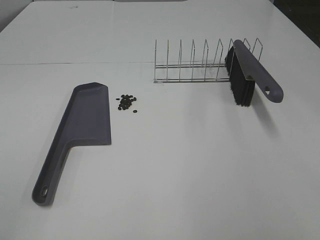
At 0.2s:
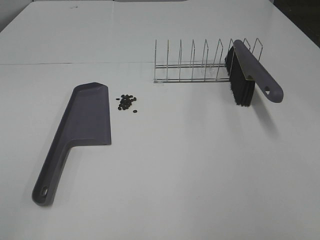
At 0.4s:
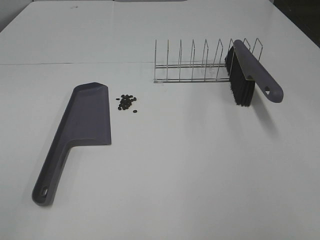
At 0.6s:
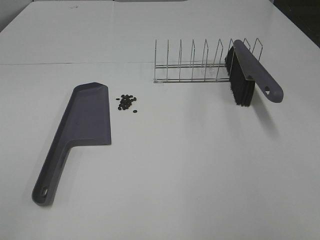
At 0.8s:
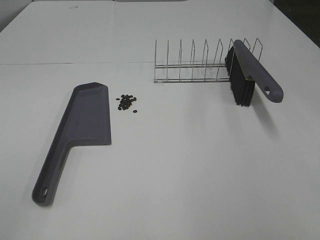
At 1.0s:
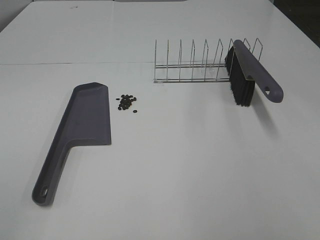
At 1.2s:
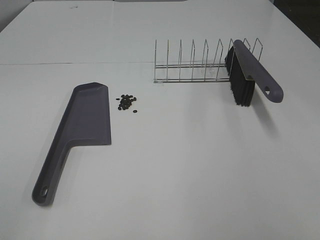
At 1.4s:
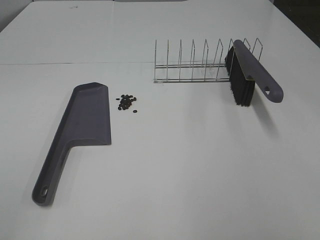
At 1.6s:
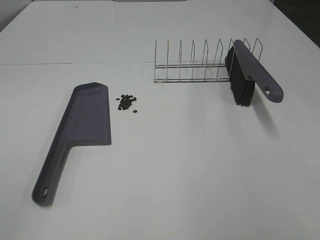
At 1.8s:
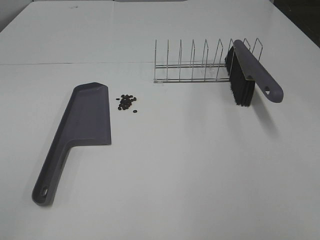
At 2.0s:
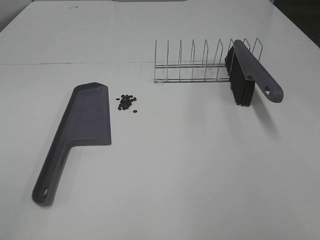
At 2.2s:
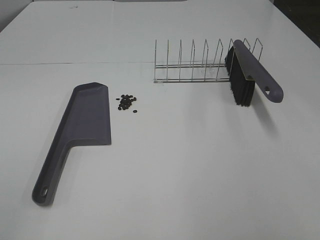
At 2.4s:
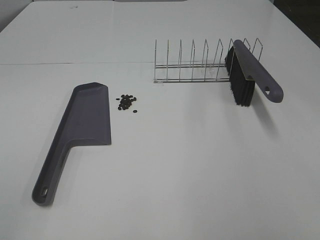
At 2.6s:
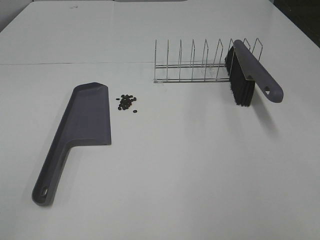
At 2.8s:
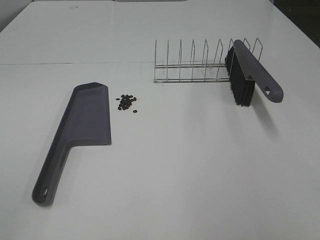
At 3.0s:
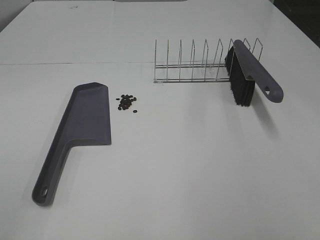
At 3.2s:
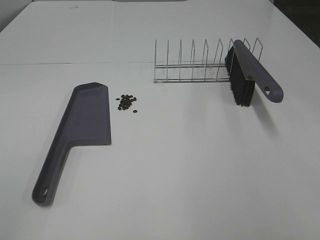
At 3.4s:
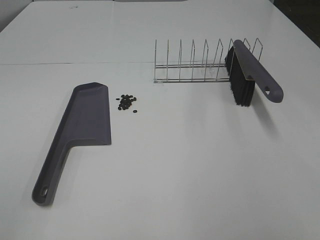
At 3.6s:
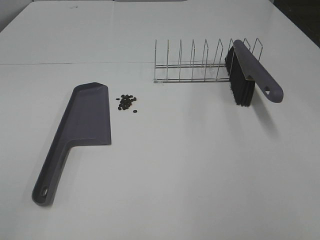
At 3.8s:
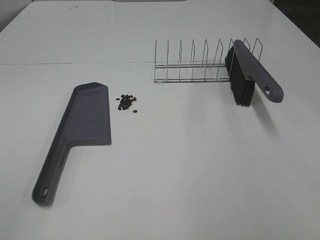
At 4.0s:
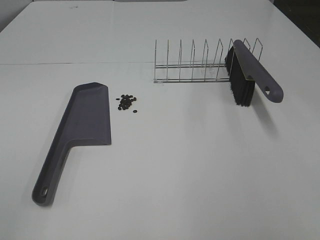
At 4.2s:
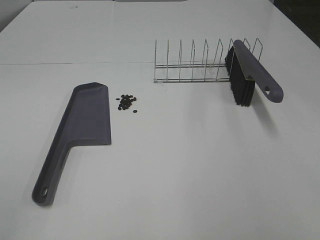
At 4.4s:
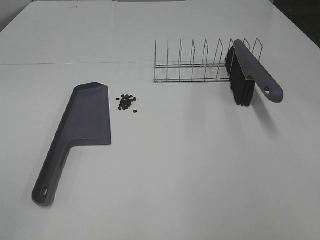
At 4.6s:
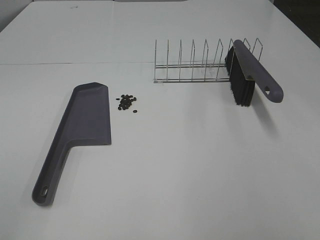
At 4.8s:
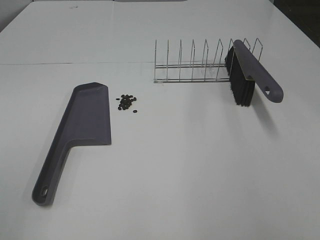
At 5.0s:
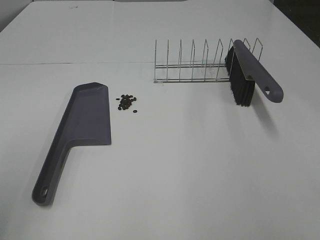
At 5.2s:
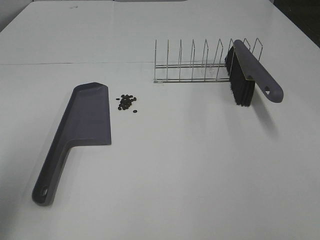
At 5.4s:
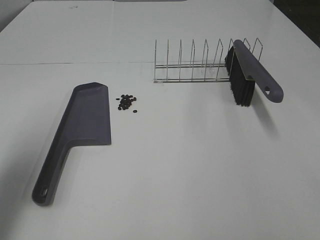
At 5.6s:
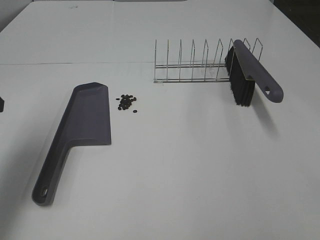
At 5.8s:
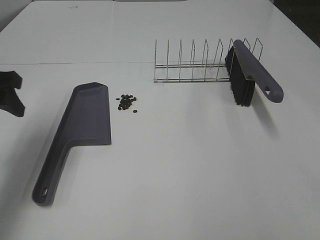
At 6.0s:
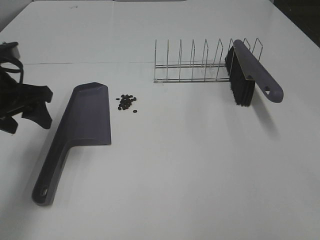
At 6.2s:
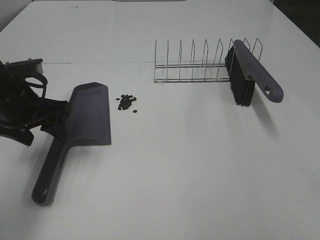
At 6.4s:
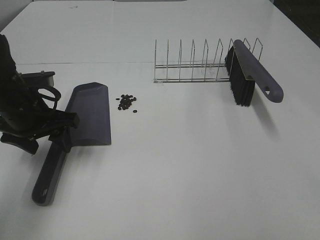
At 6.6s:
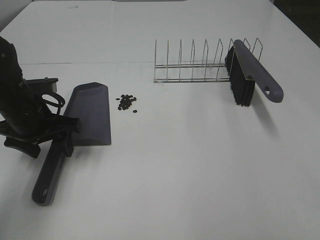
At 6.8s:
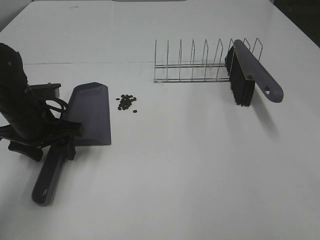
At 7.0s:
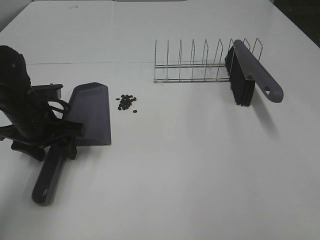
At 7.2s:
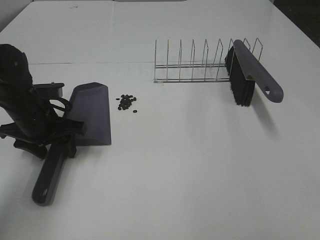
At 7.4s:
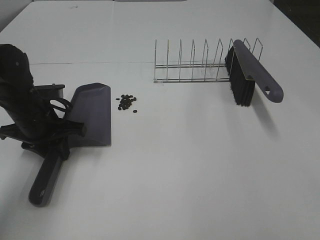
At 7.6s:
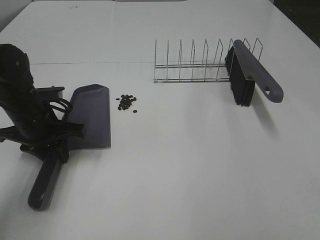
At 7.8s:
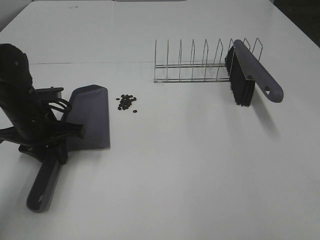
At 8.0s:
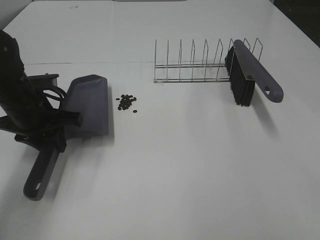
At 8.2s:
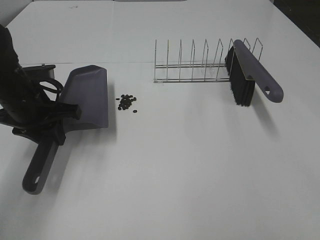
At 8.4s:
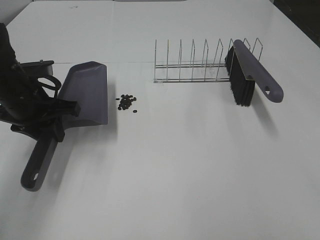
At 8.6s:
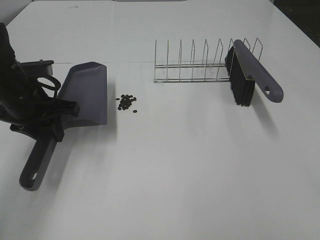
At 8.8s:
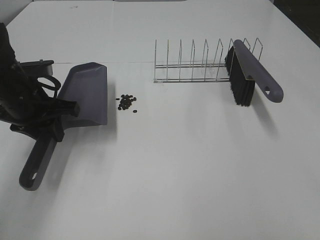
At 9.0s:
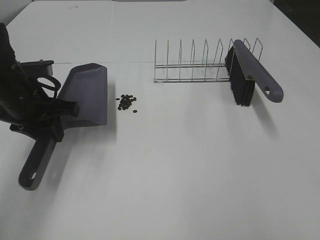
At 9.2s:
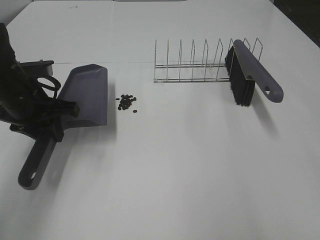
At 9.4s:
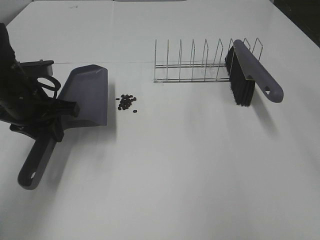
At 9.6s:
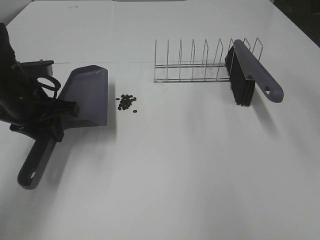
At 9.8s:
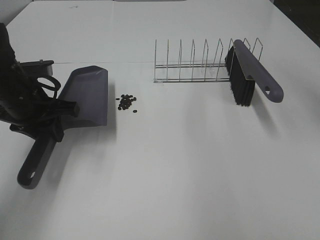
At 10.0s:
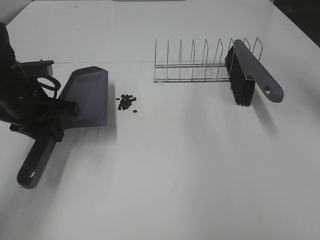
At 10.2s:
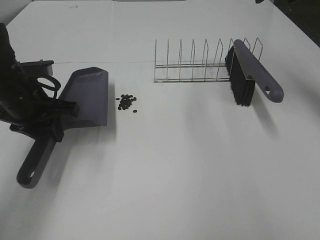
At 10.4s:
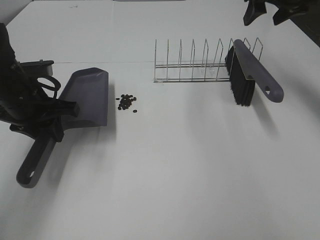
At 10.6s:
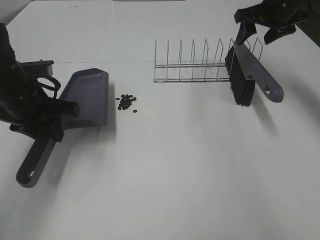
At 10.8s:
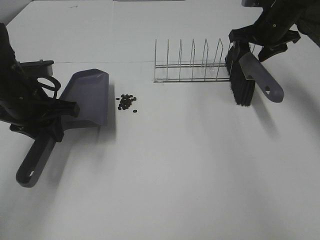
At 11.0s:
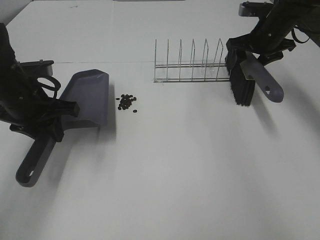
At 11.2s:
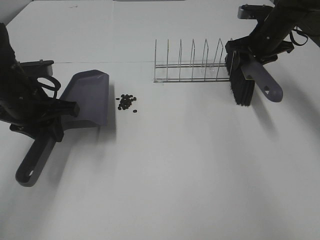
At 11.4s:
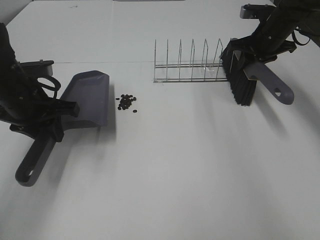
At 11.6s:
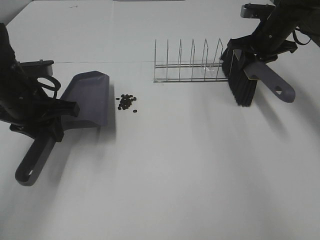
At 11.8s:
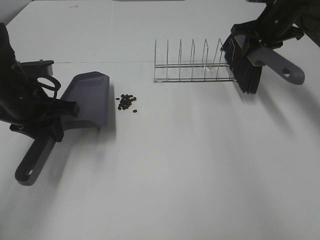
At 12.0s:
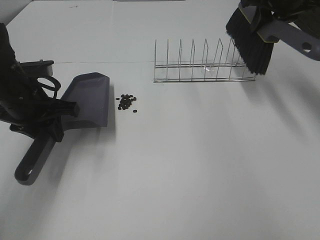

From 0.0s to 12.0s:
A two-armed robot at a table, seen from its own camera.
Task of the whole recording: Sweep Coffee Bean.
Step, from 0.0s to 7.4s: Left hand: grab the dustpan.
Step, from 8.8s to 11.2s: Right hand:grab the broom.
From 0.0s to 4.4s: The two grippers keep their place.
From 4.4s to 6.0s: The left gripper goes roughly 30 cm forward.
From 6.0s to 7.6s: The left gripper heads downward, covering approximately 10 cm, and closes up.
From 7.6s to 9.0s: The left gripper heads upward, covering about 5 cm. The right gripper shifts by about 5 cm.
From 9.0s to 10.4s: The right gripper shifts some 40 cm forward.
From 10.4s to 12.0s: The right gripper goes downward and returns, about 10 cm each way, and closes its fingers.

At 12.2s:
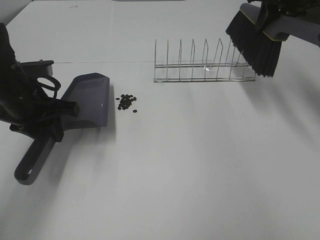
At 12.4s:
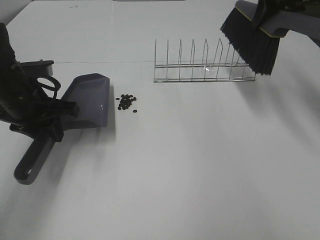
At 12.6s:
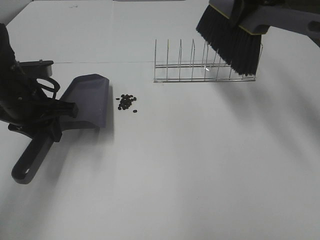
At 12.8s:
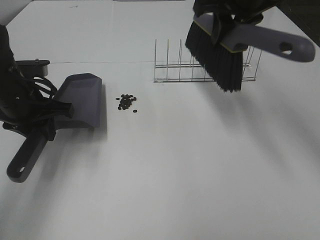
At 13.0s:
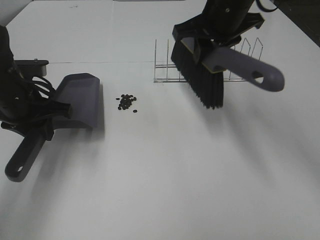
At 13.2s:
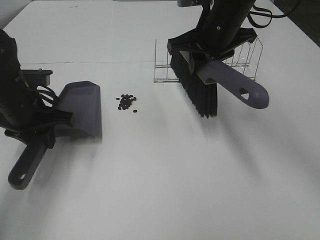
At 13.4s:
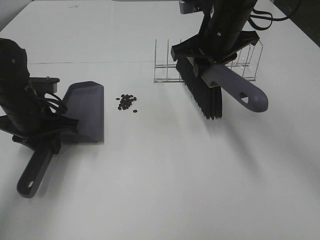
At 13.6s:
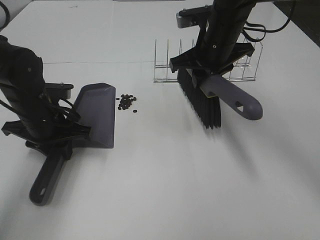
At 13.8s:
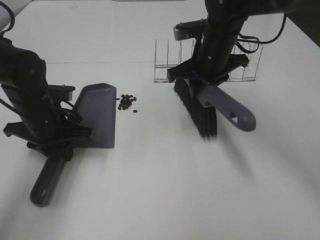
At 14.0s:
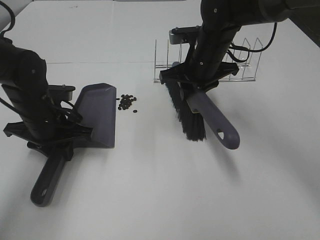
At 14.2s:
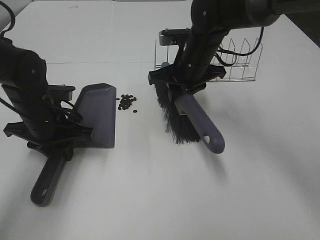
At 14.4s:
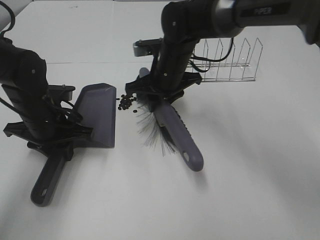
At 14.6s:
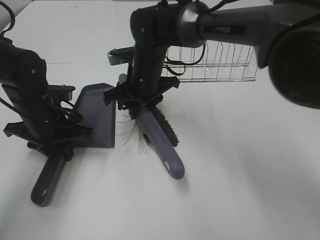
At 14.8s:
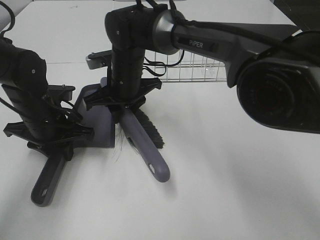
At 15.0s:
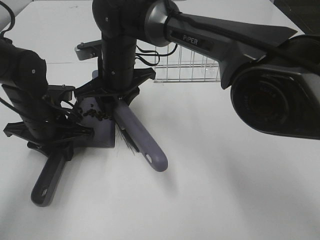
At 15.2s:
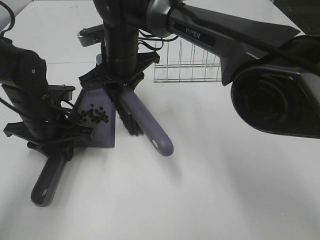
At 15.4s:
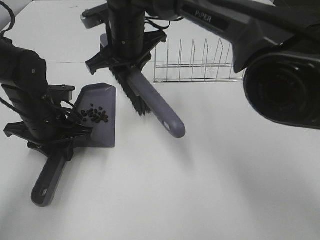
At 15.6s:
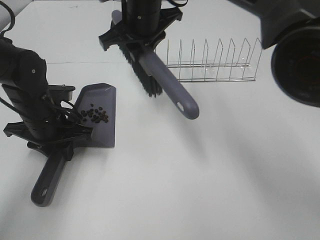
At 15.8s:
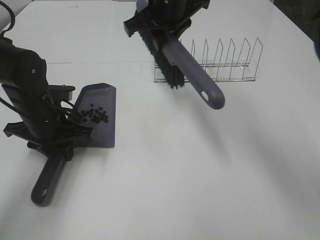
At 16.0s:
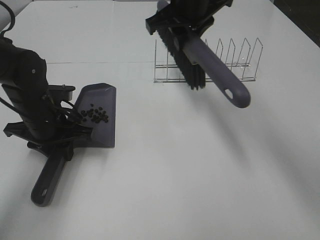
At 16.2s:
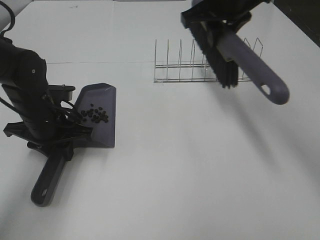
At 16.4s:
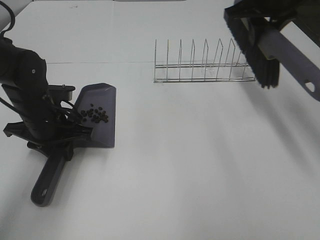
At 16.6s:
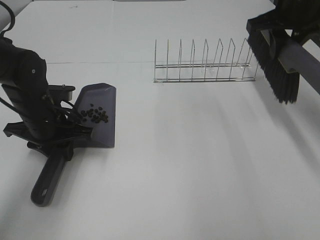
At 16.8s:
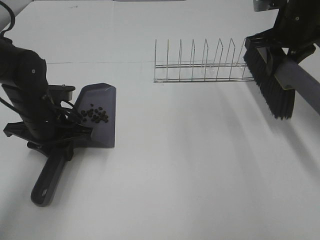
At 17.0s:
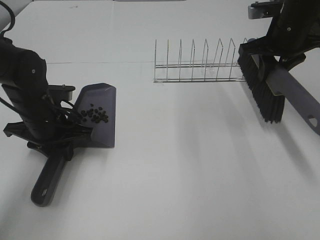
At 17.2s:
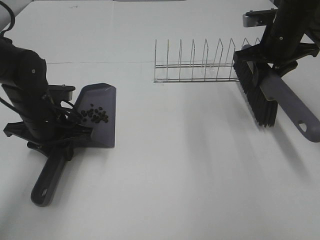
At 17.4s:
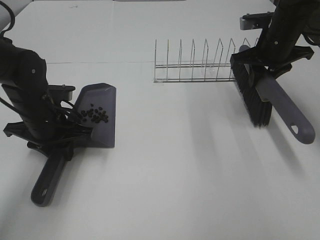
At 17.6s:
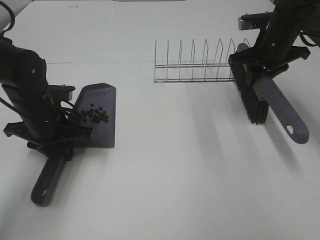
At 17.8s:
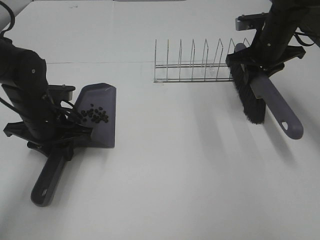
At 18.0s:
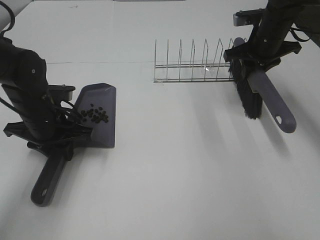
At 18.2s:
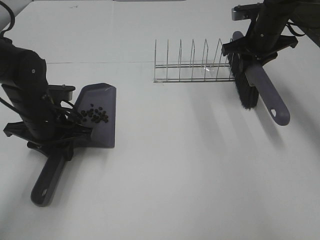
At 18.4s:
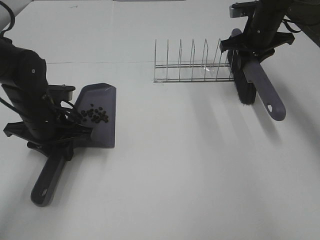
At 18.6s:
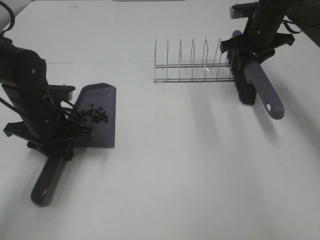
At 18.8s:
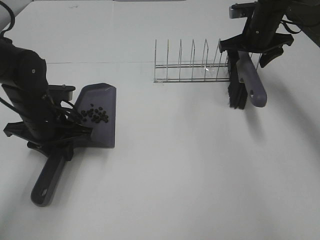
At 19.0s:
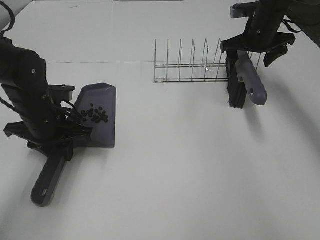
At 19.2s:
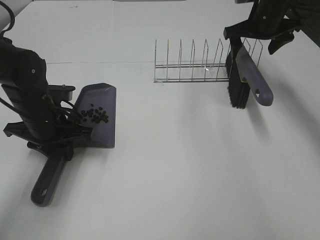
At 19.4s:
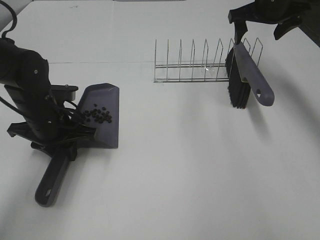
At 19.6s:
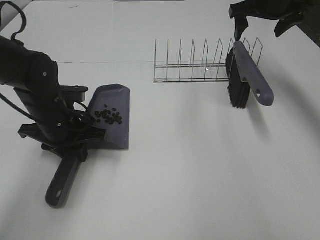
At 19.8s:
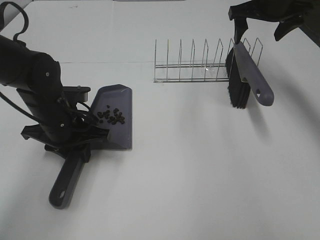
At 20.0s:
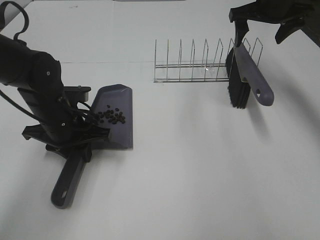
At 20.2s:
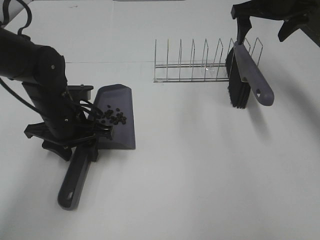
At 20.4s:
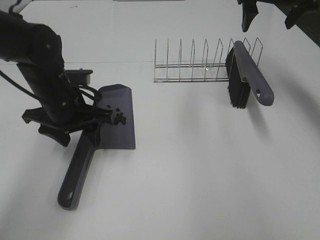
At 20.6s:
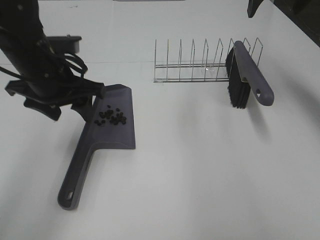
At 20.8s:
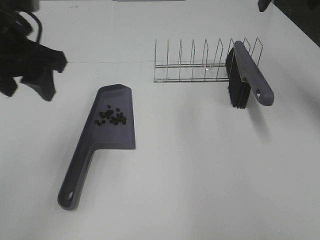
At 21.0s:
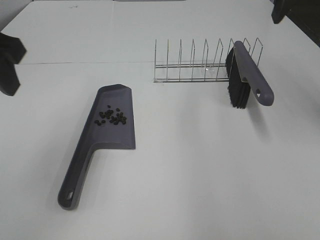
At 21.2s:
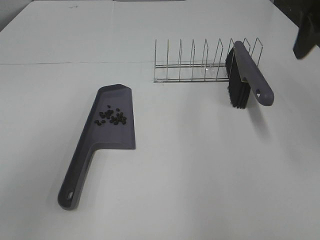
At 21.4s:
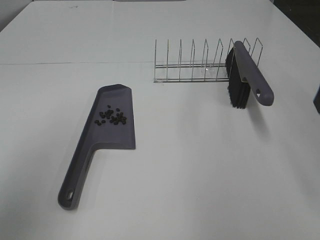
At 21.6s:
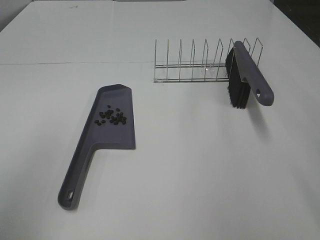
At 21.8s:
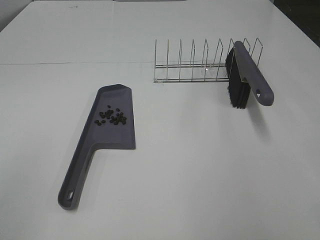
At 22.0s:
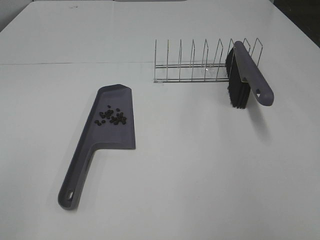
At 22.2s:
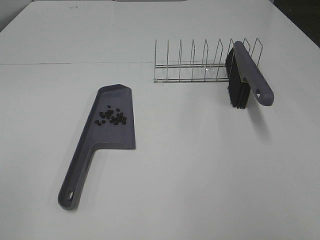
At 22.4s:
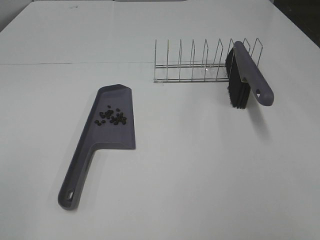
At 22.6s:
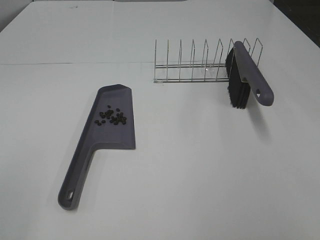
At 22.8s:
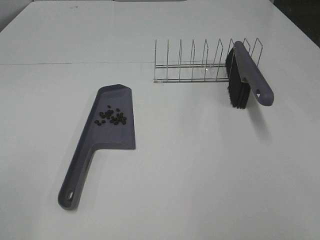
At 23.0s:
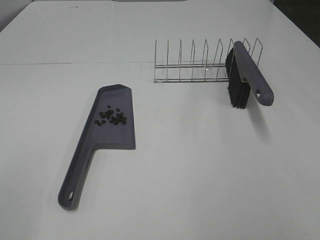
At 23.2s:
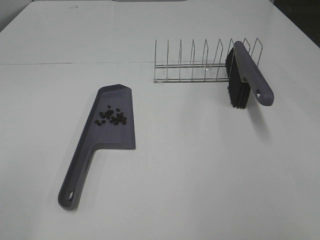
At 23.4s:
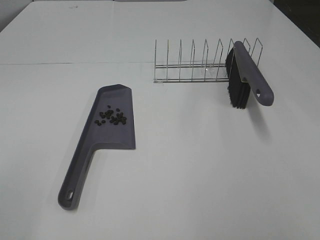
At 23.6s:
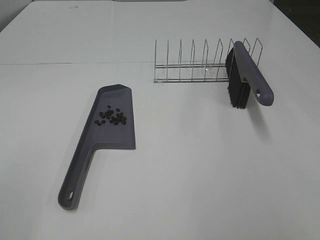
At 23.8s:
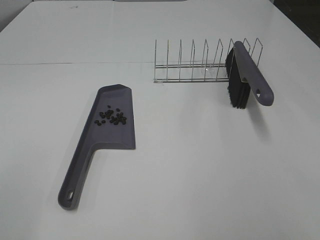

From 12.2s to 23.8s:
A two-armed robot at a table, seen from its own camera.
Task of the whole recording: Sweep Coffee Bean.
Step, from 12.2s to 15.0s: Right hand:sweep the coffee beans into the dustpan.
Step, from 15.2s to 19.0s: Right hand:place the broom on the rack.
Step, from 19.2s to 20.4s: Left hand:place the dustpan on the table.
From 12.2s to 13.6s: The right gripper moves to the left and downward, roughly 20 cm. The left gripper travels downward by approximately 5 cm.
From 13.6s to 15.0s: The right gripper travels to the left by about 20 cm.
From 15.0s to 16.6s: The right gripper travels to the right by some 30 cm.
From 16.6s to 18.0s: The right gripper shifts roughly 10 cm downward and forward.
From 18.0s to 19.4s: The right gripper travels upward by roughly 5 cm, and opens up.
From 19.4s to 21.0s: The right gripper shifts some 20 cm backward and upward. The left gripper shifts some 25 cm upward, and opens its fingers.
From 21.0s to 22.4s: The left gripper moves backward and to the left, some 25 cm.
